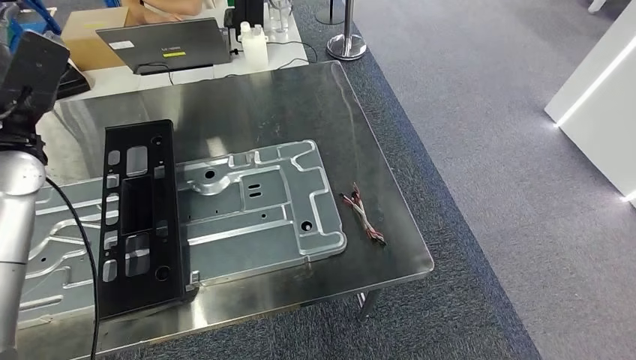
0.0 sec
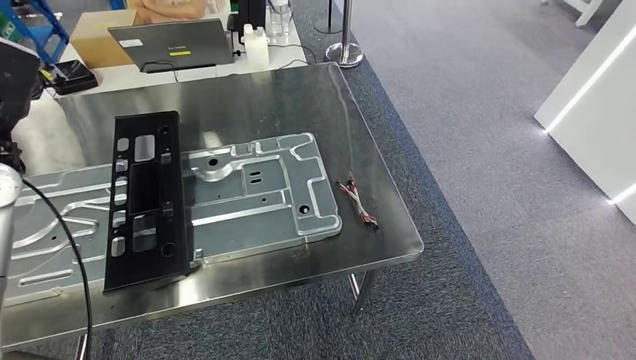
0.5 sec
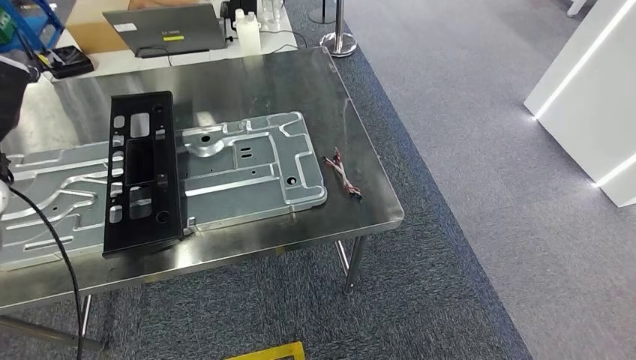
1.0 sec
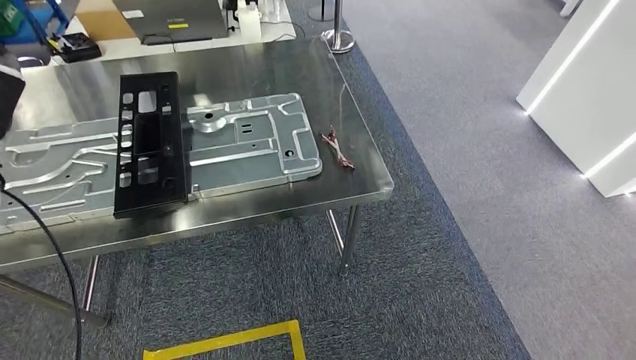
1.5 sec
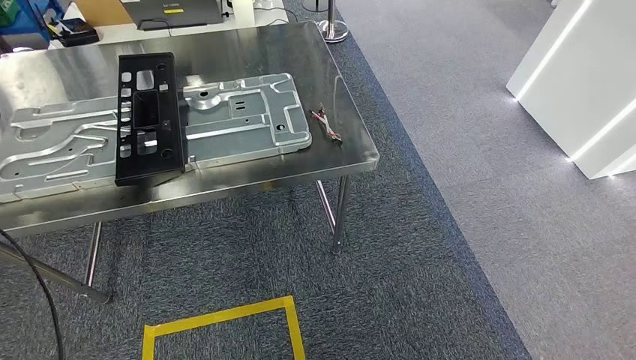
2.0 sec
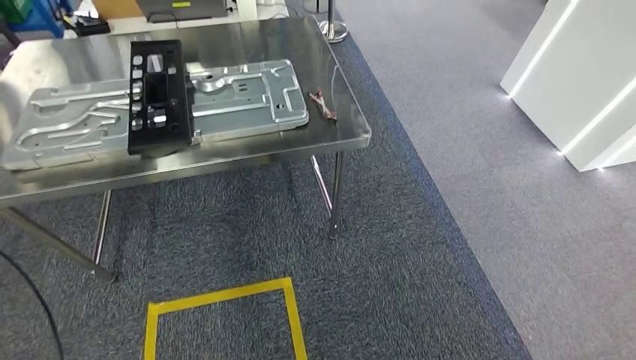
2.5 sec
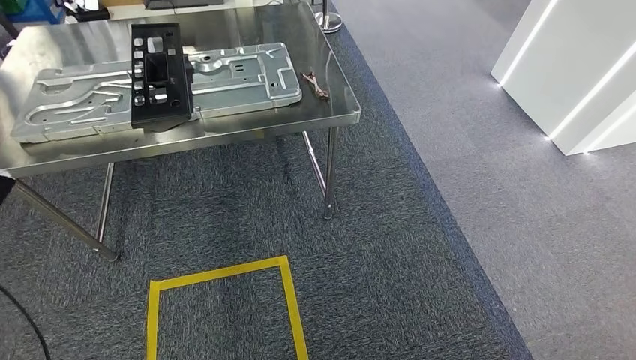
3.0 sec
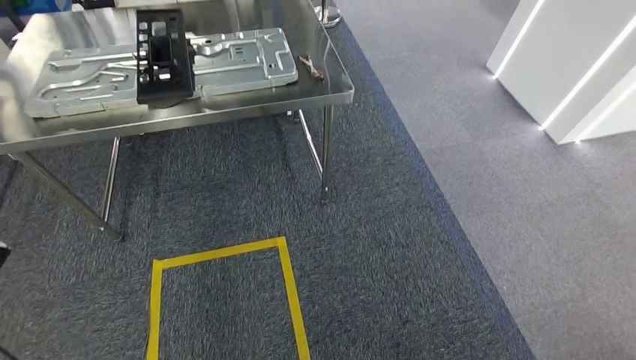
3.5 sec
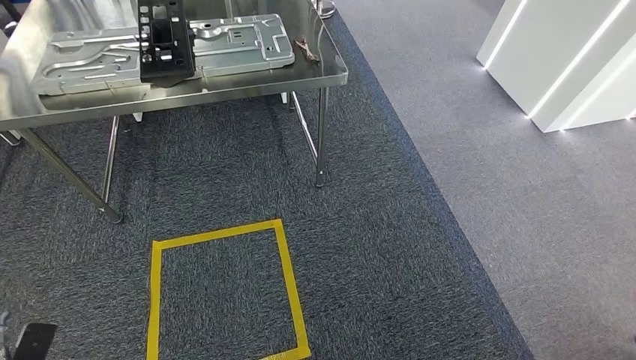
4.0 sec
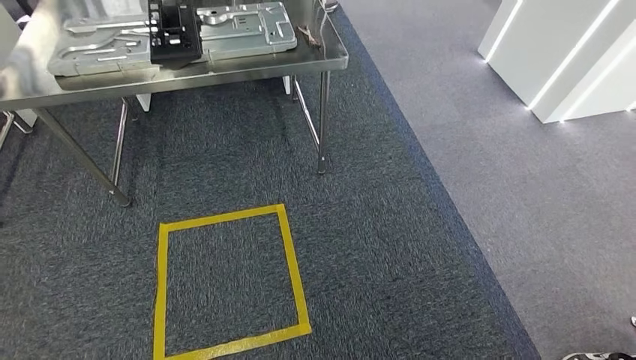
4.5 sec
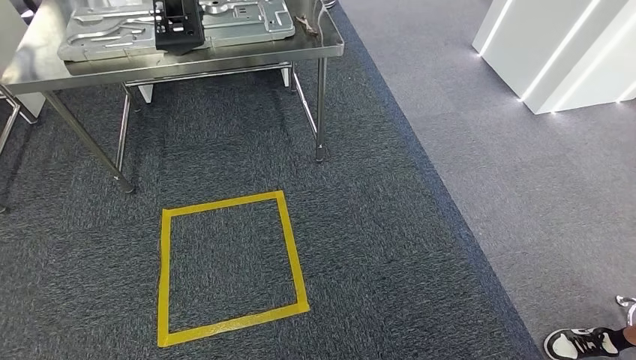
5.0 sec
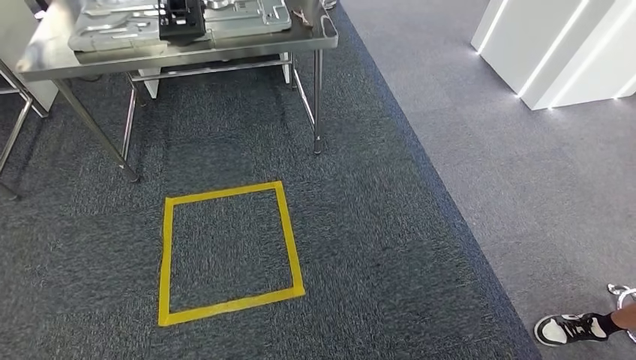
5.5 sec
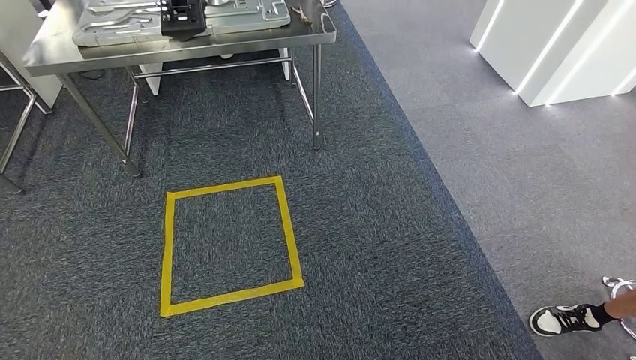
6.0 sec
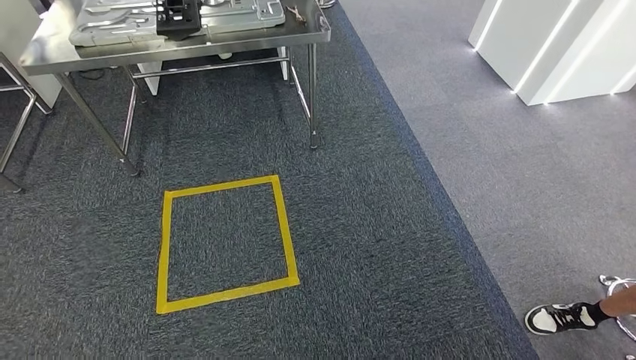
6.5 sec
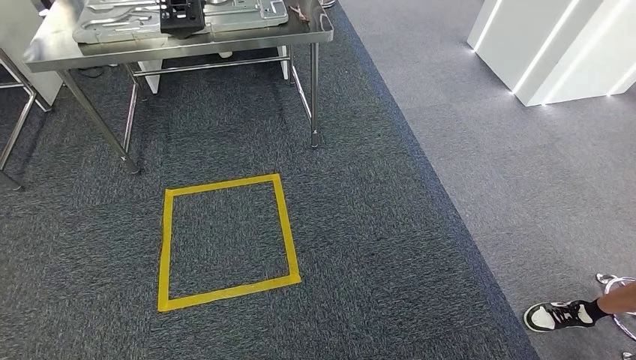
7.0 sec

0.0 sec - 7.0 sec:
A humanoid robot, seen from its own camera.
Step, 2.0 sec - 7.0 sec: Move to the initial position of the shelf.
5.0 sec - 7.0 sec: The right hand shifts some 10 cm to the right.
